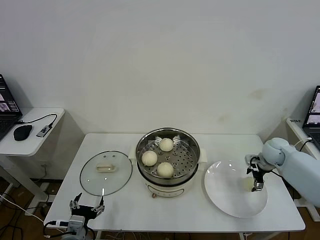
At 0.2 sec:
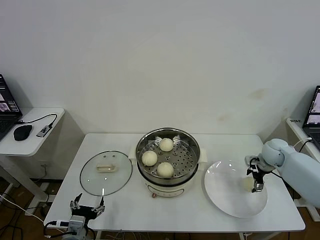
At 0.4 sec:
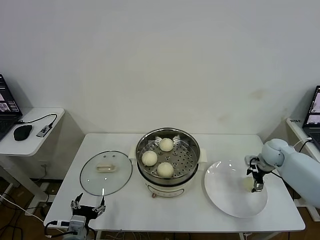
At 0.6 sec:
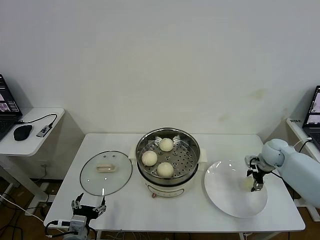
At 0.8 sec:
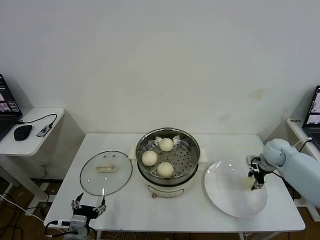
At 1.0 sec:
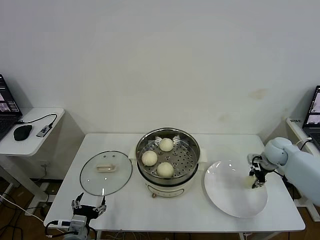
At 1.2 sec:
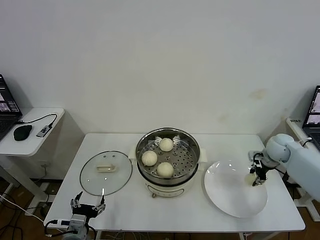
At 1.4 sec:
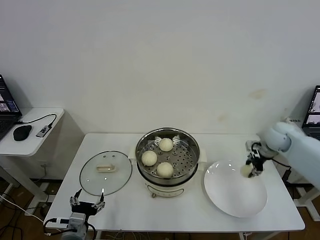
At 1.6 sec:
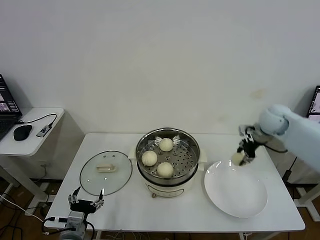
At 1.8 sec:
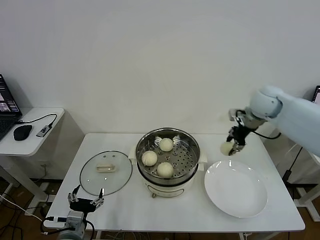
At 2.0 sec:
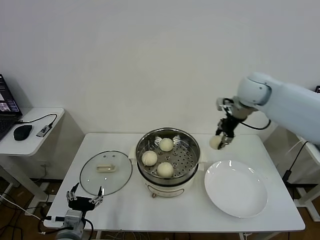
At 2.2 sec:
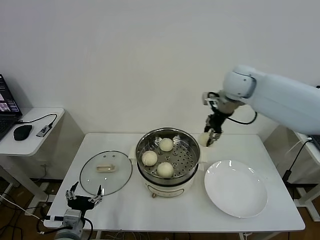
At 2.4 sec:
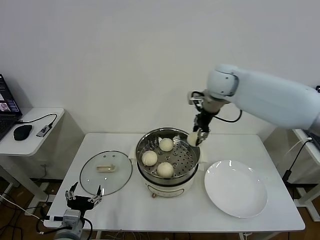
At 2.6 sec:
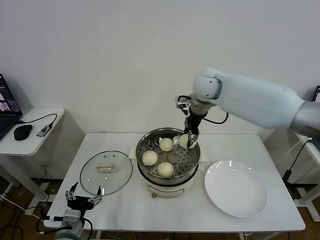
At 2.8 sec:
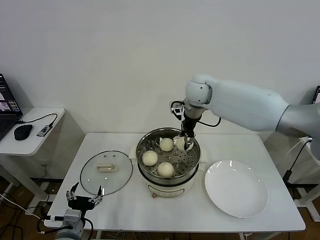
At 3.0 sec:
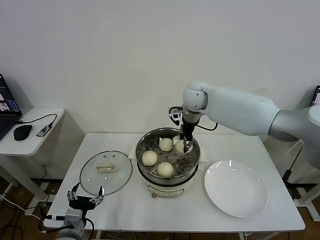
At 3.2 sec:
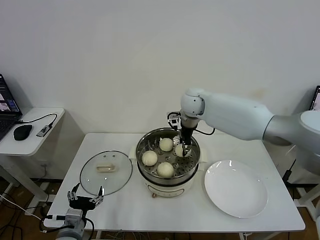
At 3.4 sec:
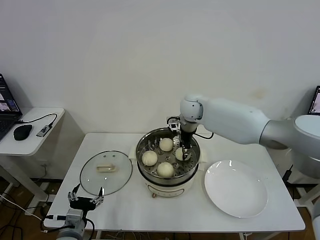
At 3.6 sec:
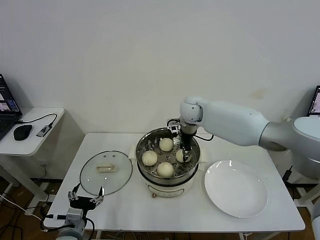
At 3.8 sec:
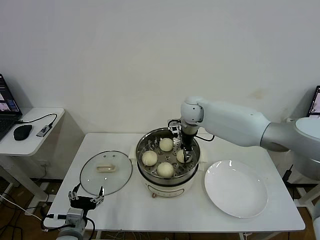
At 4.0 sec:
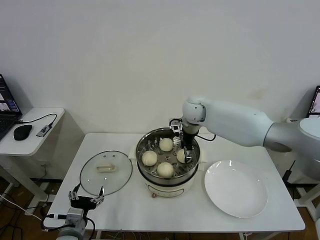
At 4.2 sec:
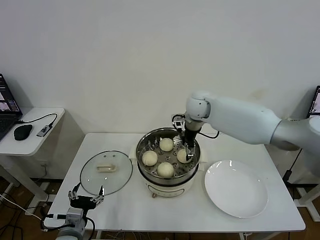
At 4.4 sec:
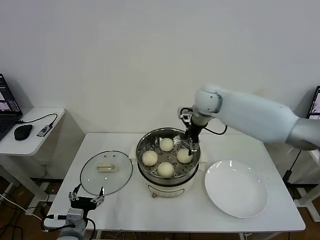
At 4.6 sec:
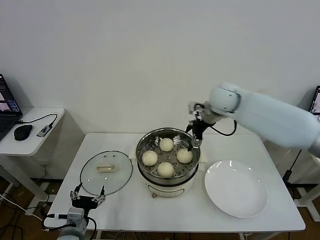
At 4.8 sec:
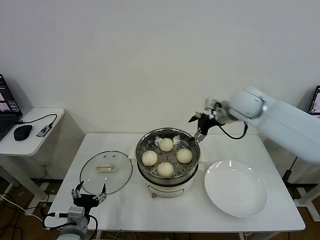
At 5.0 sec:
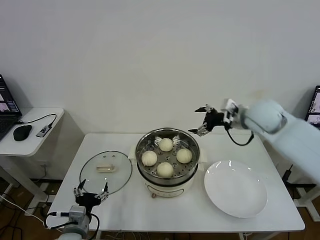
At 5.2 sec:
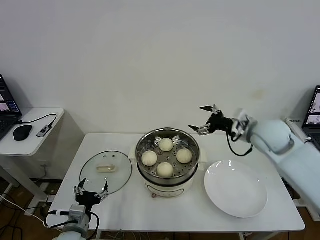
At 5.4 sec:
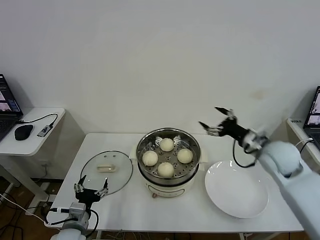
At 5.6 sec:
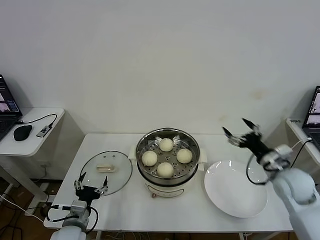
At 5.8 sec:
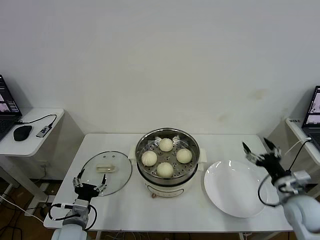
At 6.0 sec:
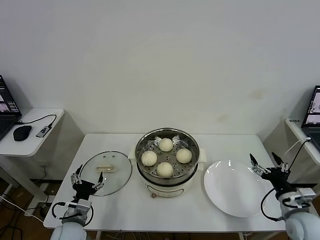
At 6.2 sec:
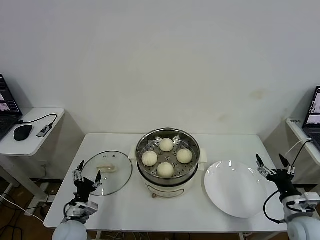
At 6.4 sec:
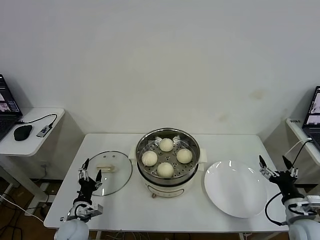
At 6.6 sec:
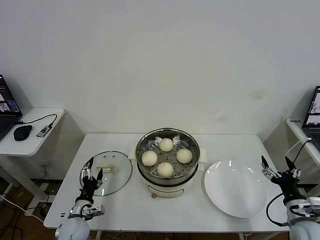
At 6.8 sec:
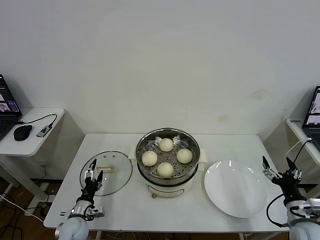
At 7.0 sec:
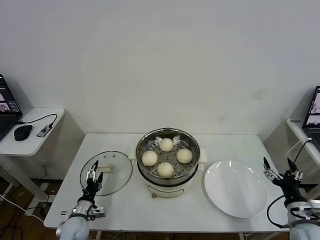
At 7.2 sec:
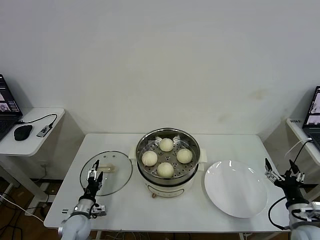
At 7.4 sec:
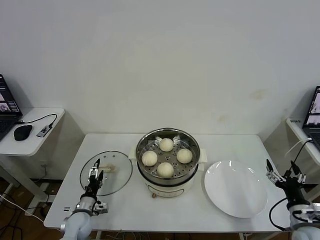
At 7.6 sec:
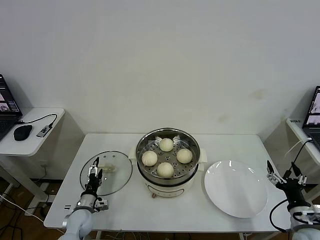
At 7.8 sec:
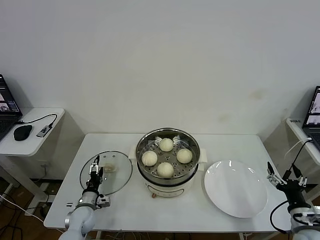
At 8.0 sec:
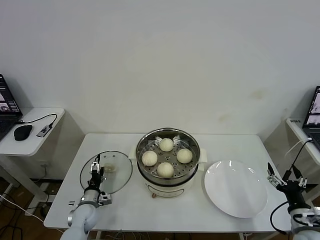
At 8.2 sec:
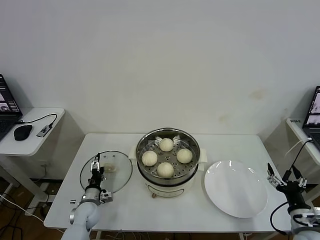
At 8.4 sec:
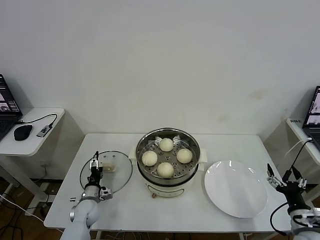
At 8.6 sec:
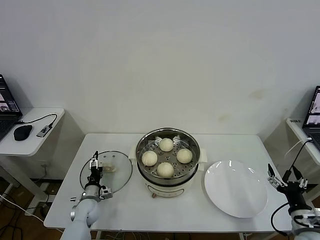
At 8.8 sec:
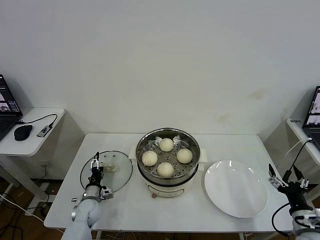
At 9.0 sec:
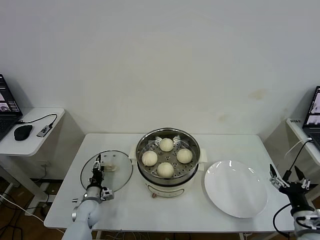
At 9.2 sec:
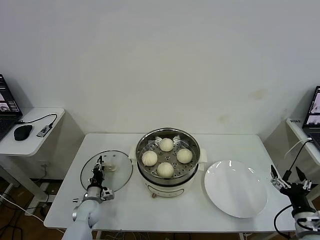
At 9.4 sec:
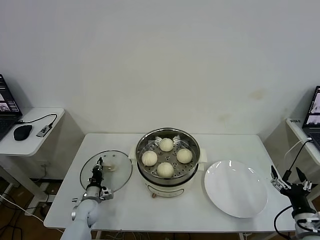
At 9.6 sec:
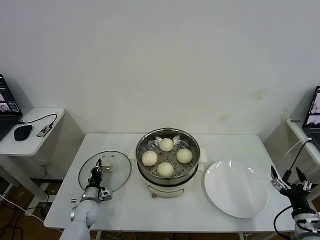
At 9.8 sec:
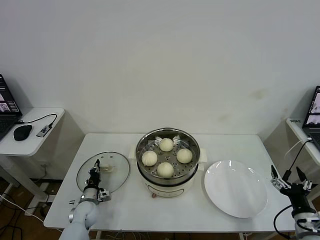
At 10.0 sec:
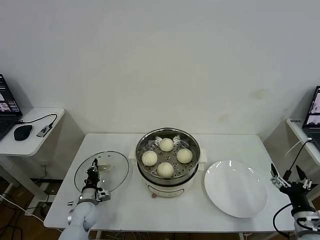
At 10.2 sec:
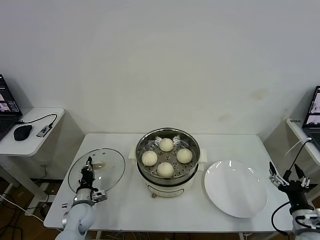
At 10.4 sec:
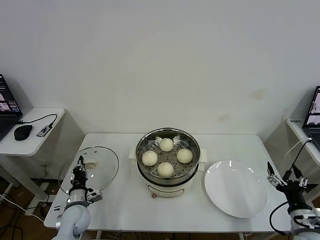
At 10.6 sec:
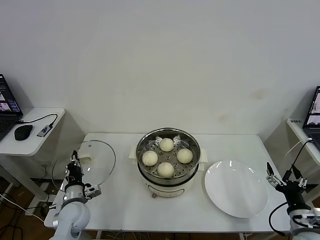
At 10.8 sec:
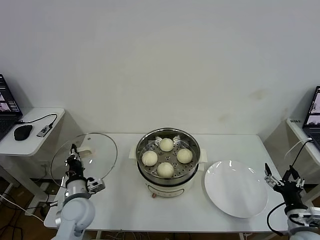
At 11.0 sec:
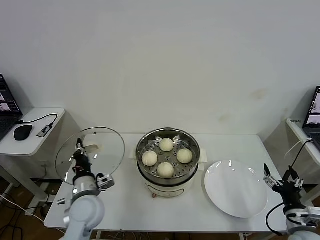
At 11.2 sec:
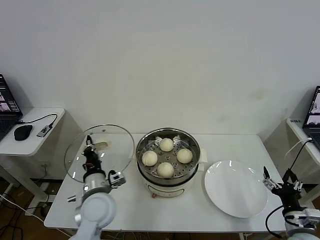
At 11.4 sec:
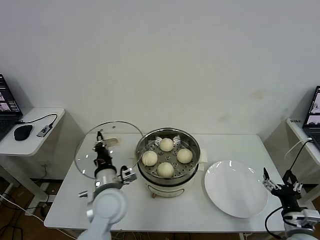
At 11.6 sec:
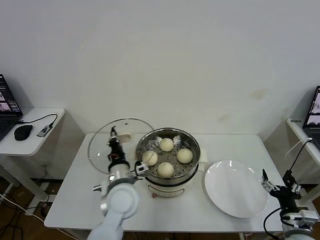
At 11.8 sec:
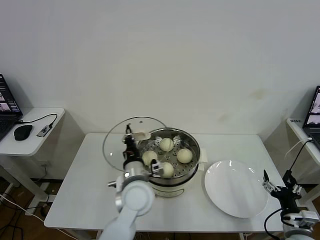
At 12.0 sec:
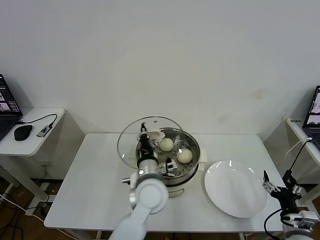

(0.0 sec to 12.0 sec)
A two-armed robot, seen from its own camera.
Task of the whole recording: take steamed baozi put them in steamer then cover it.
Step, 1.2 sec - 4.2 sec: Place the baozi on the steamer with right gripper.
Step, 4.4 sec - 9.8 sec: Grasp the pot lid with left gripper.
0.0 sec - 1.6 sec: The right gripper shifts about 15 cm upward and to the left, and closes its fingers.
1.6 sec - 3.0 sec: The right gripper goes some 25 cm to the left.
3.0 sec - 4.4 sec: The right gripper opens up.
4.4 sec - 6.0 sec: The right gripper travels backward, to the right and downward by approximately 50 cm. The left gripper changes place by some 5 cm.
6.0 sec - 7.6 sec: The left gripper travels downward and forward by about 10 cm.
7.6 sec - 9.0 sec: The left gripper moves approximately 5 cm.
9.0 sec - 10.4 sec: The left gripper heads upward, covering some 5 cm, and closes.
10.4 sec - 12.0 sec: The left gripper goes some 30 cm to the right and upward.

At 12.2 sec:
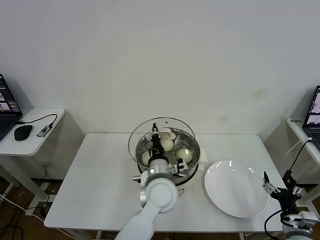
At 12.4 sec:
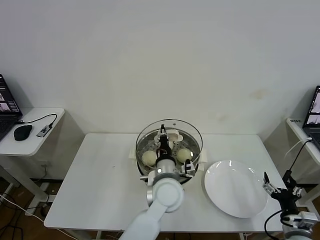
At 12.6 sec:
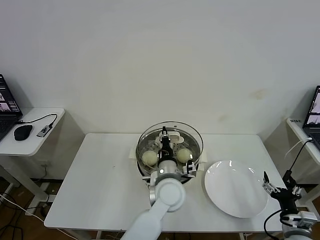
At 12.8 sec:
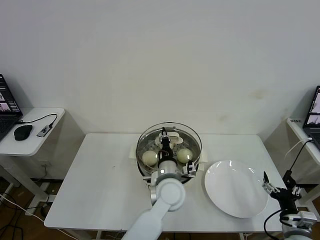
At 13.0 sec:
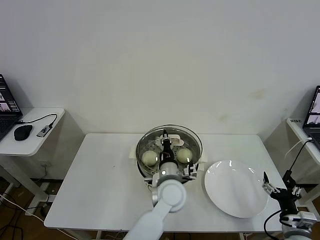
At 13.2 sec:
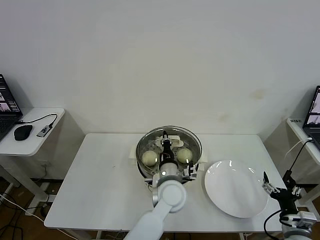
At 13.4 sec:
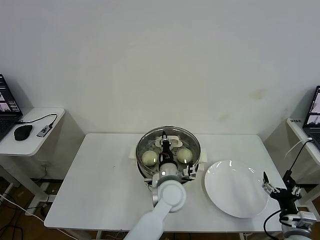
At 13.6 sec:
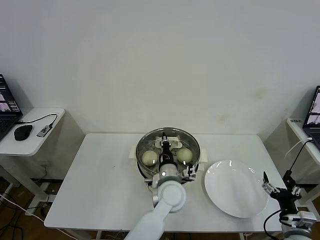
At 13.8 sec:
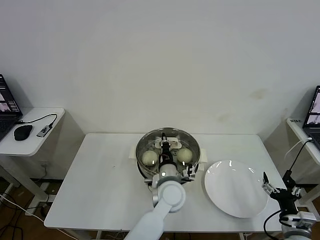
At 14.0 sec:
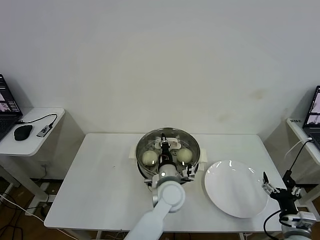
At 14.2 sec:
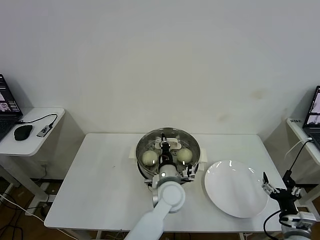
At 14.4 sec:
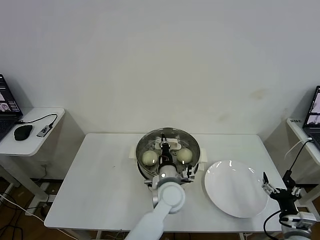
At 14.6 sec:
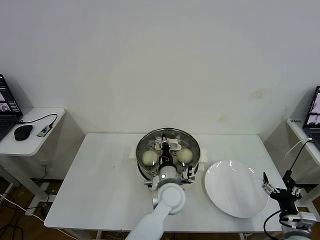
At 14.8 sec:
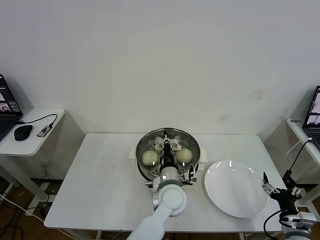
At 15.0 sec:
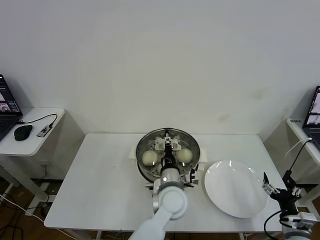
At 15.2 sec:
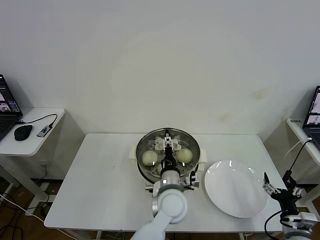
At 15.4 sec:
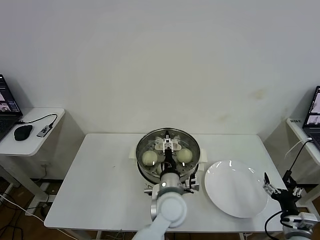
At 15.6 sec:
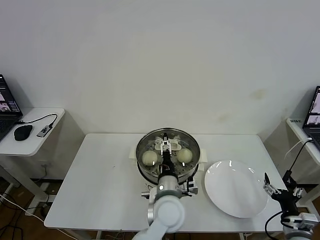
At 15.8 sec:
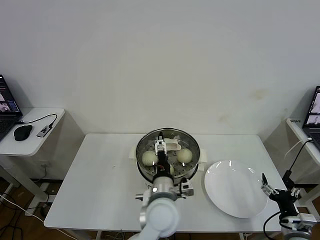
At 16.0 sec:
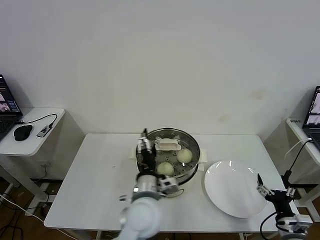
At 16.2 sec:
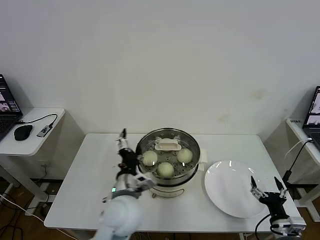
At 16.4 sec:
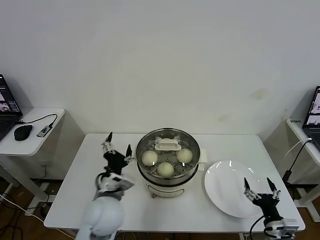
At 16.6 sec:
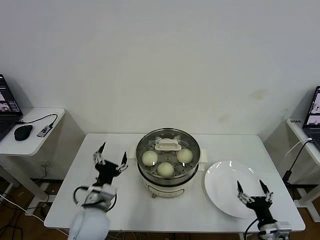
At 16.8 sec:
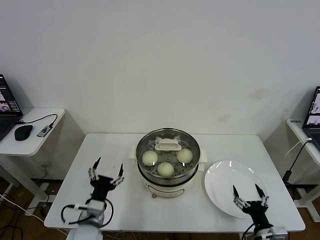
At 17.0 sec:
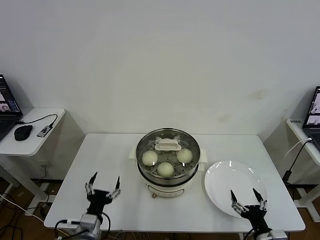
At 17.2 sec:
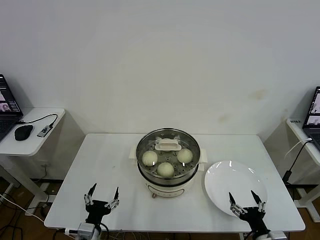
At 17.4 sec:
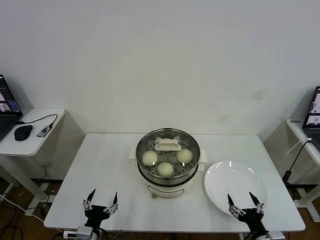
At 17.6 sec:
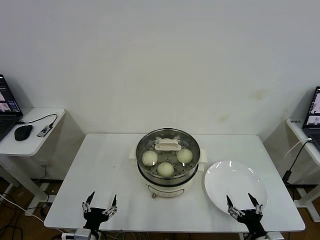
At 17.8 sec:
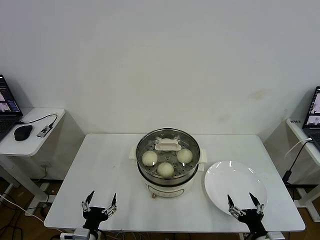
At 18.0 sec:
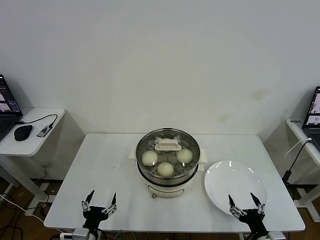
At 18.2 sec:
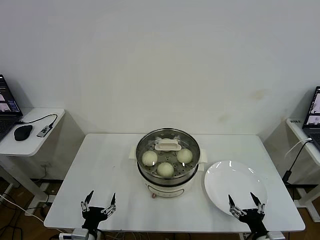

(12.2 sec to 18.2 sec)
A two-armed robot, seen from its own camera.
Task of the whole recording: take steamed baozi put them in steamer then cover it.
Step, 12.2 sec - 15.4 sec: Place the pot lid on the steamer with left gripper.
12.2 sec - 13.8 sec: The left gripper changes place by about 5 cm.
13.8 sec - 15.2 sec: The left gripper opens.
15.2 sec - 16.6 sec: The right gripper ends up approximately 5 cm from where it was. The left gripper shifts roughly 20 cm to the left.
16.6 sec - 18.2 sec: The left gripper heads backward, downward and to the left, covering approximately 15 cm.
